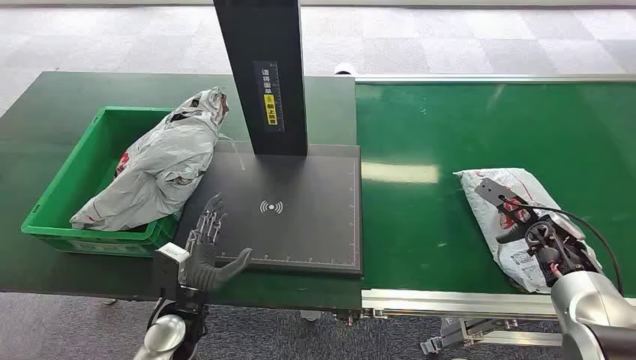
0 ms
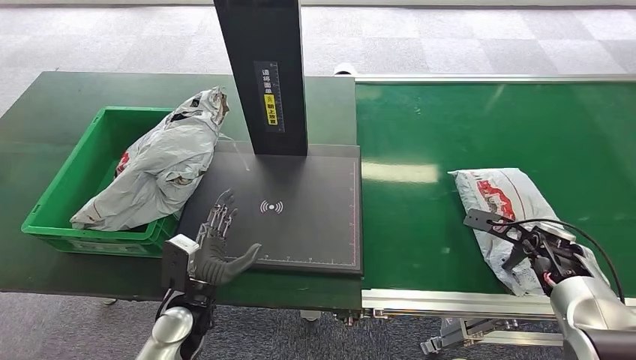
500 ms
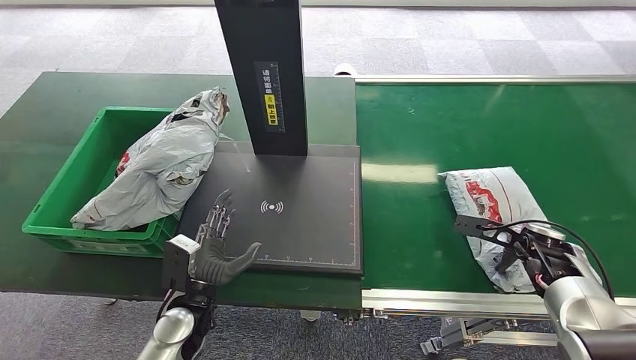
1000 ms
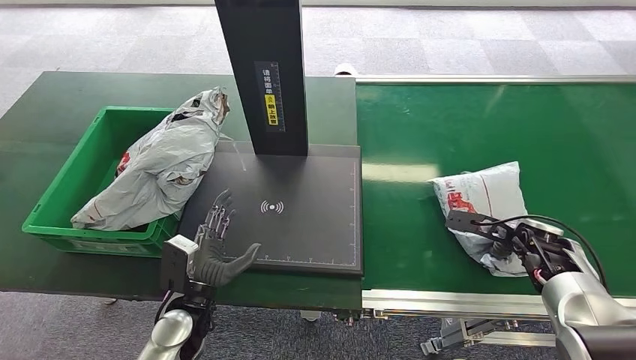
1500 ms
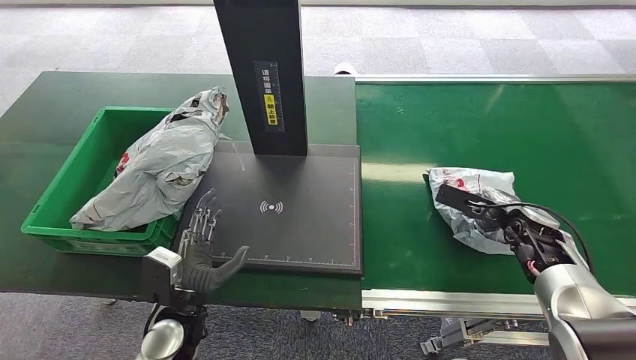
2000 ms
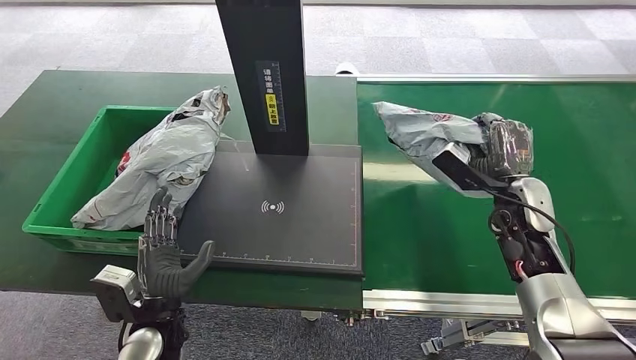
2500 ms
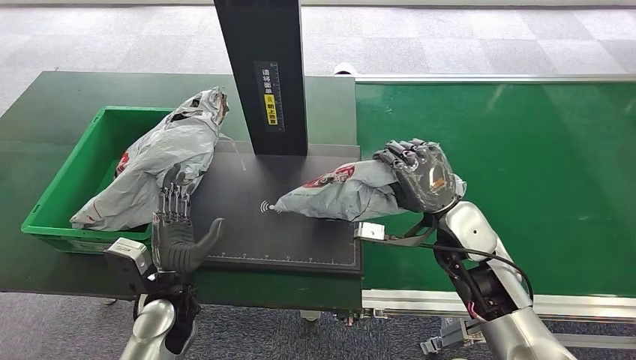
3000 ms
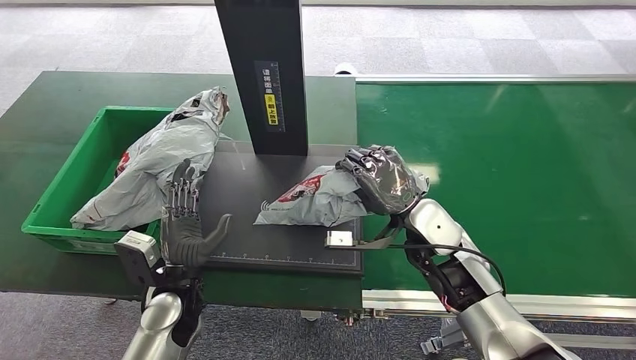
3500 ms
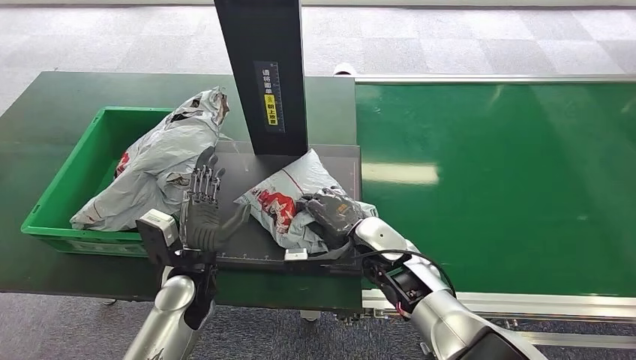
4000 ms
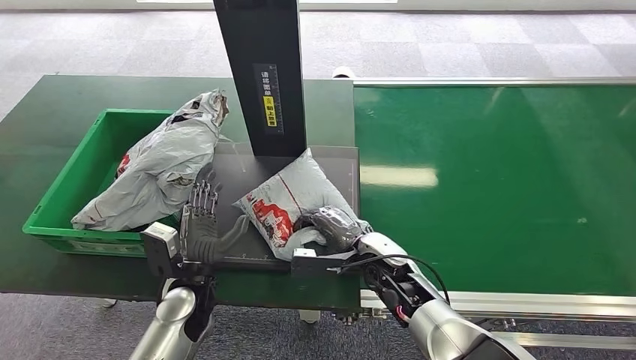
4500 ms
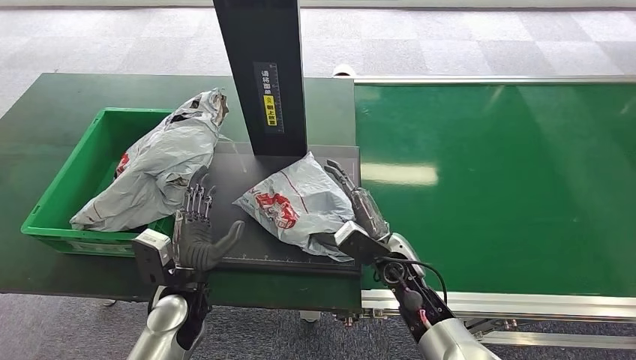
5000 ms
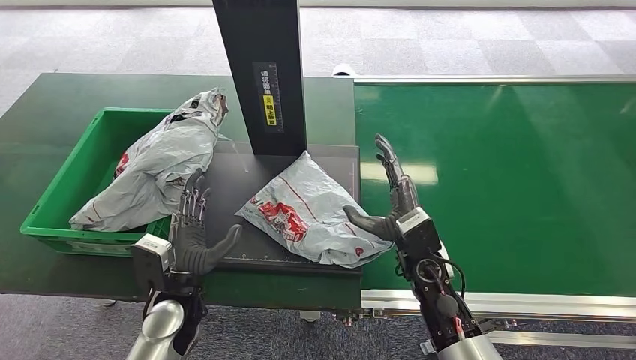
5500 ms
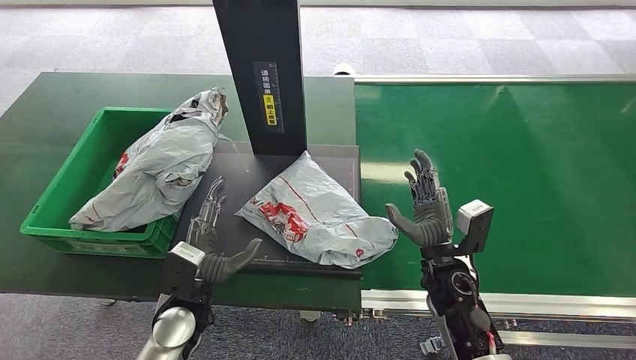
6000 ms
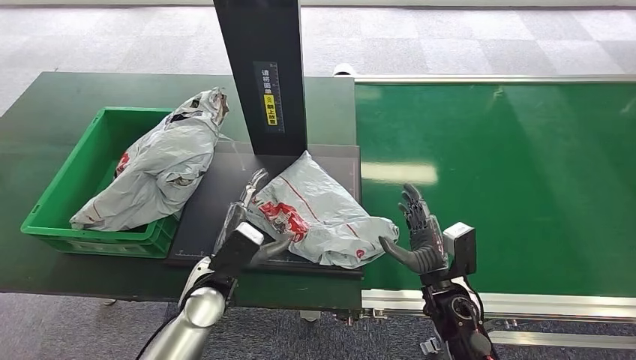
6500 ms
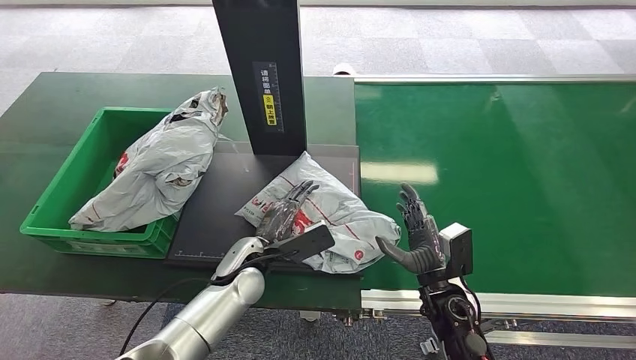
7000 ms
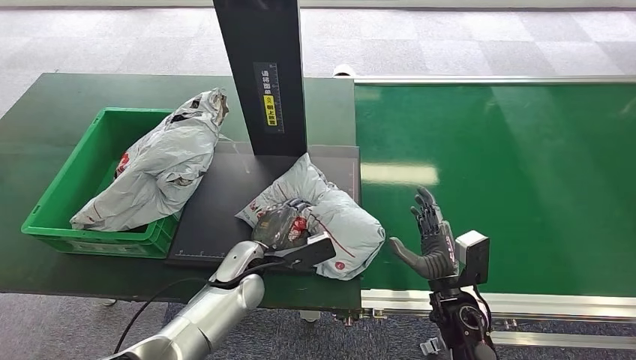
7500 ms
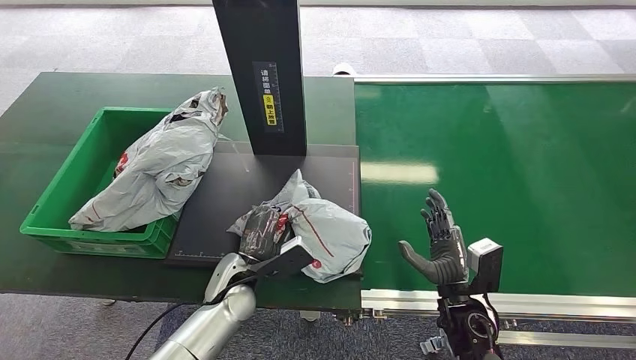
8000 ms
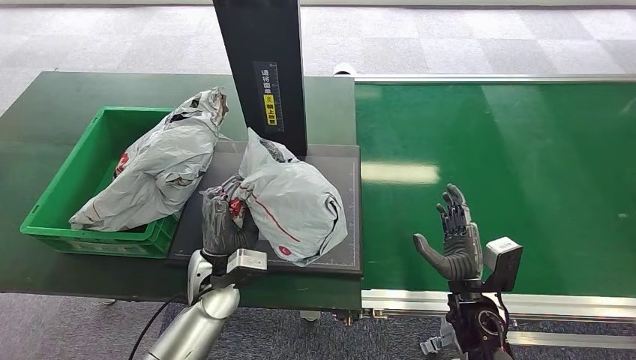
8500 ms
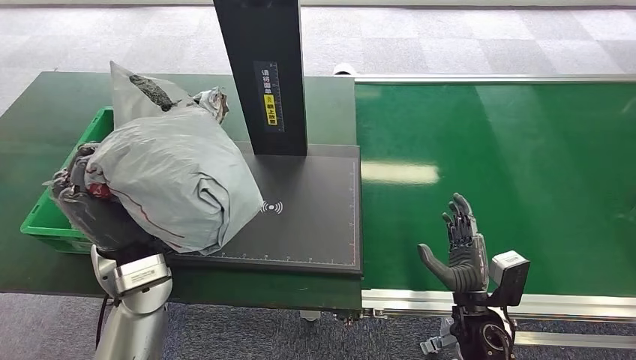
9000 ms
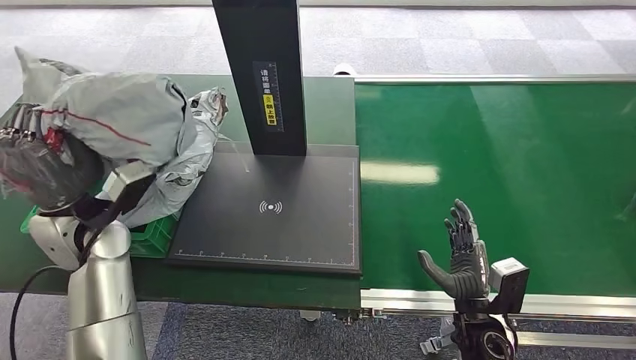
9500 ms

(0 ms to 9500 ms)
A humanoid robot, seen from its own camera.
Task of the whole recording: Weigh the package on the weighing device and place it in the left basket.
Step, 0 ms - 2500 ms: Pick up the package from the conveyor belt.
Step, 3000 ms - 6000 ms: Place the package onto the inbound machine.
2000 ms - 4000 ms: The left hand travels forward by roughly 5 cm, while the right hand moves to the left, some 30 cm.
5500 ms - 7500 ms: The left hand moves to the right and forward, about 10 cm. Meanwhile the right hand moves backward, to the right and downward, approximately 10 cm.

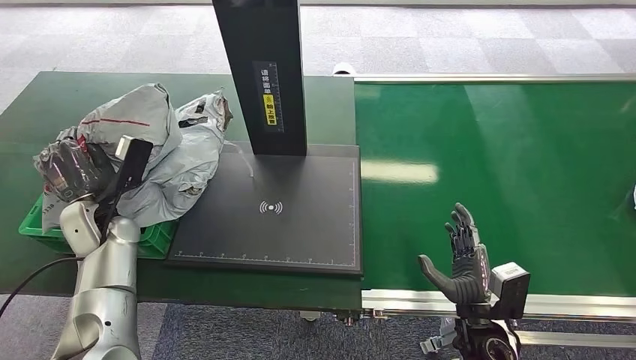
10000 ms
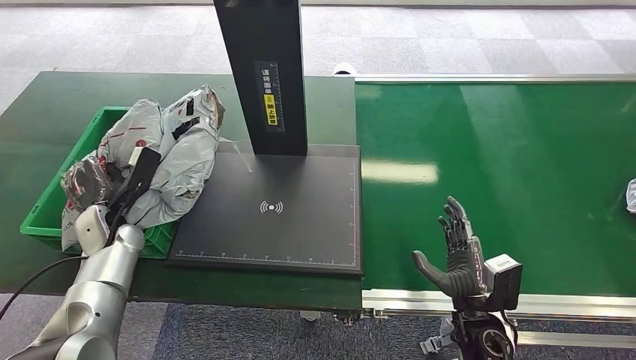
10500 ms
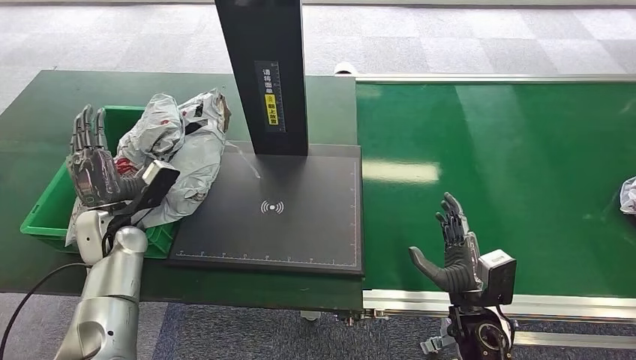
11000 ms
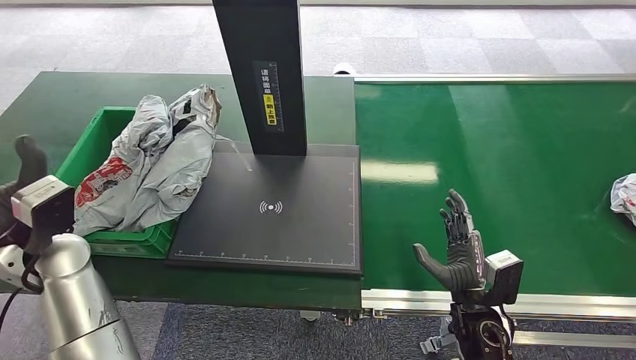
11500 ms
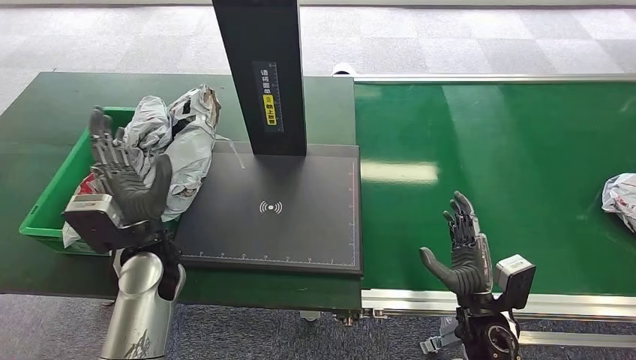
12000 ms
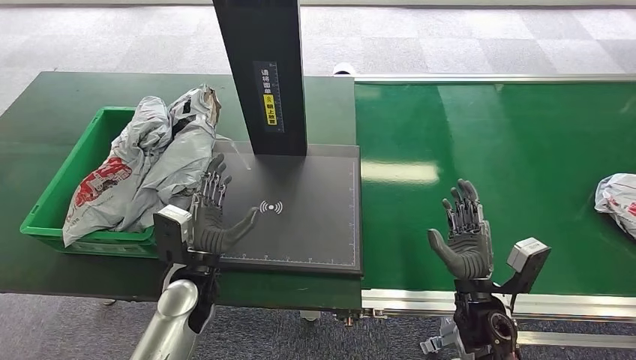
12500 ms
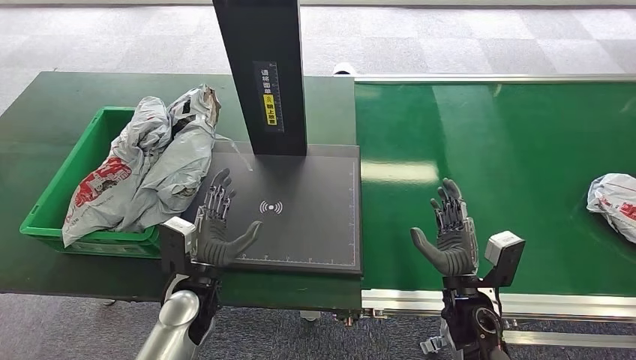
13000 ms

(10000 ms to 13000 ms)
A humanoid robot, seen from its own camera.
Task of the whole recording: Weigh the package on the weighing device and place it in the left basket.
Step, 10000 ms - 13000 ms: Place the package into the parcel locker.
10000 ms - 11500 ms: The left hand goes approximately 10 cm backward and upward.
11500 ms - 13000 ms: The left hand goes about 20 cm to the right and downward.

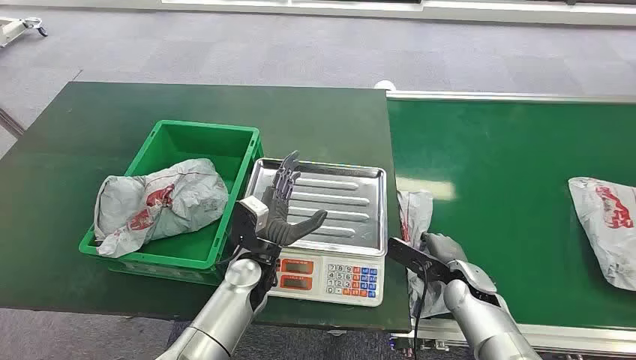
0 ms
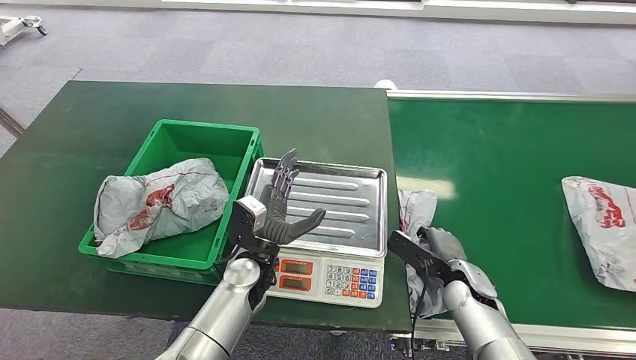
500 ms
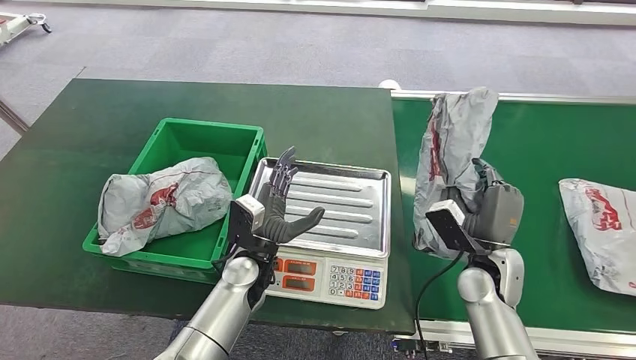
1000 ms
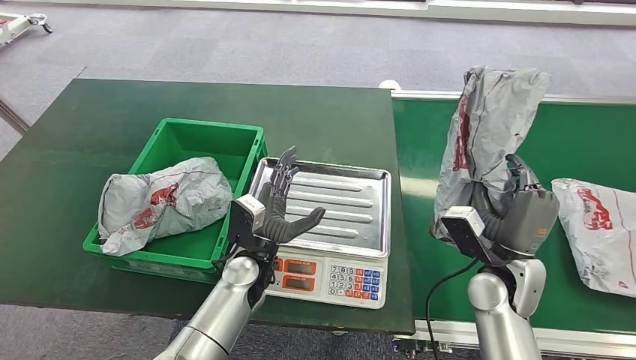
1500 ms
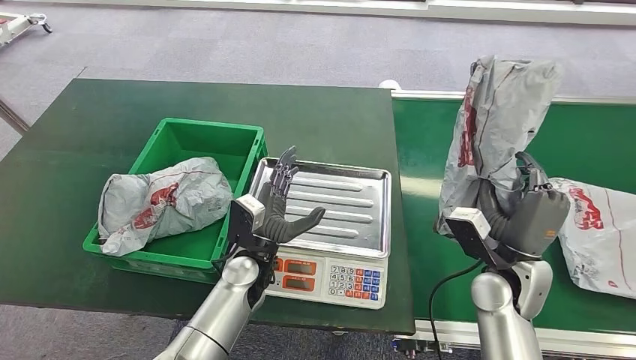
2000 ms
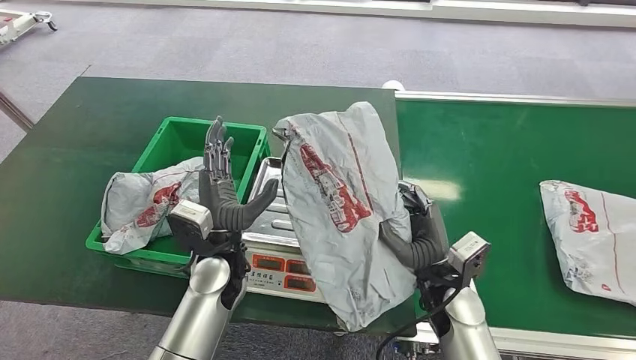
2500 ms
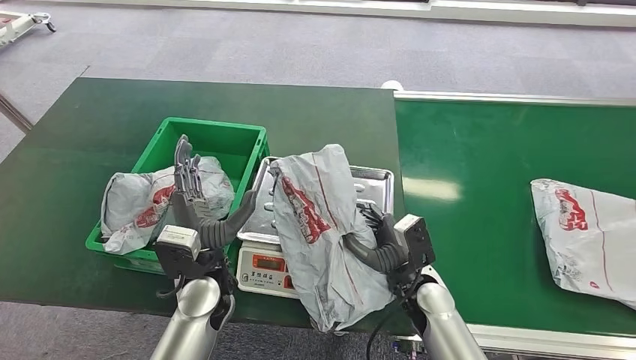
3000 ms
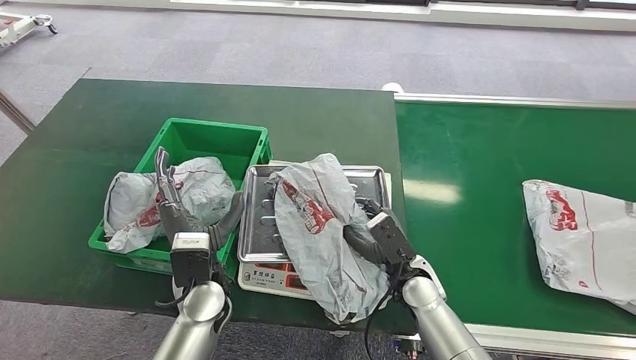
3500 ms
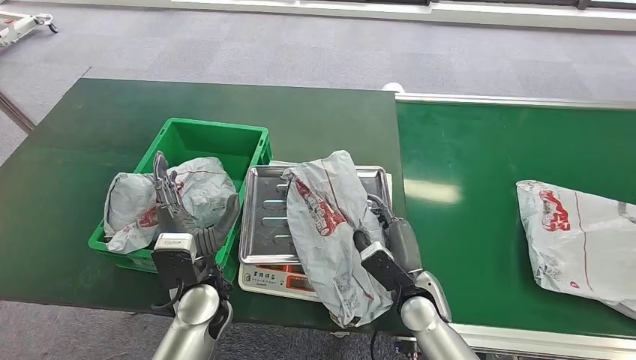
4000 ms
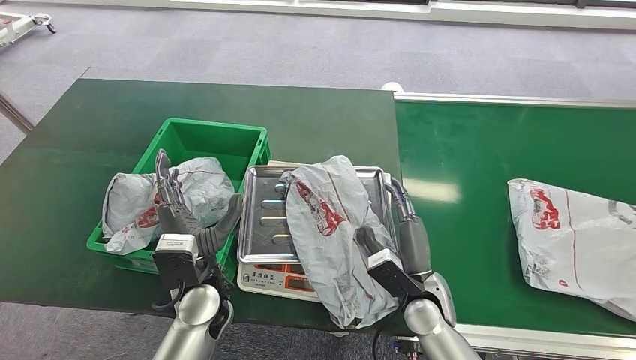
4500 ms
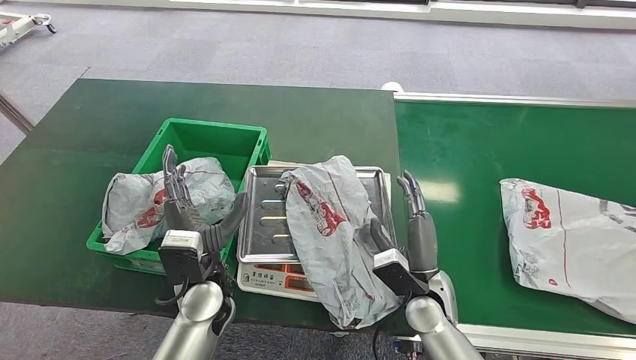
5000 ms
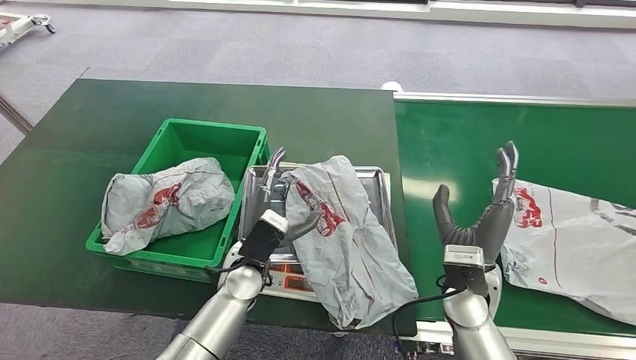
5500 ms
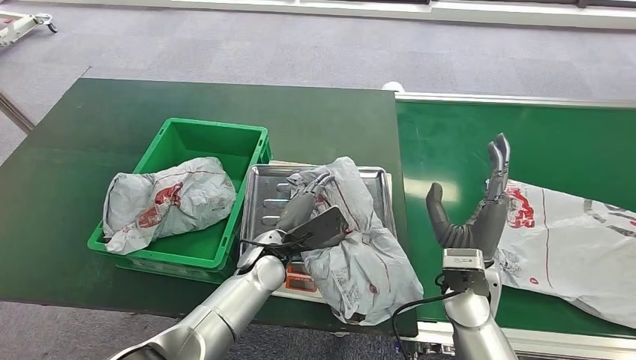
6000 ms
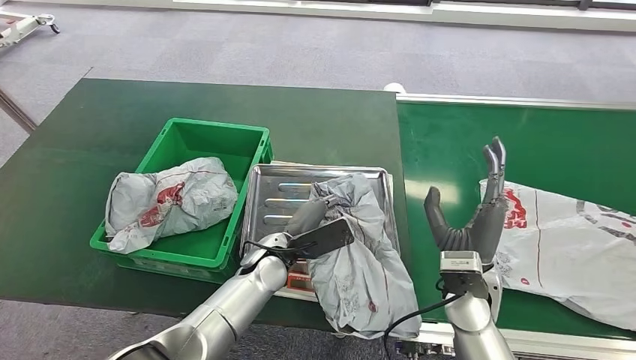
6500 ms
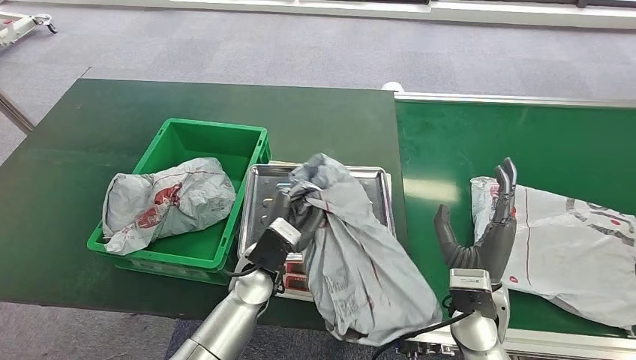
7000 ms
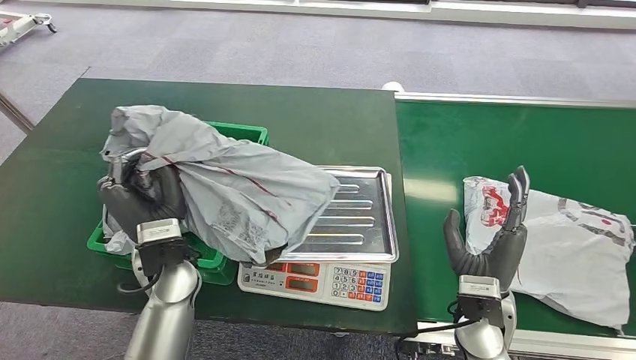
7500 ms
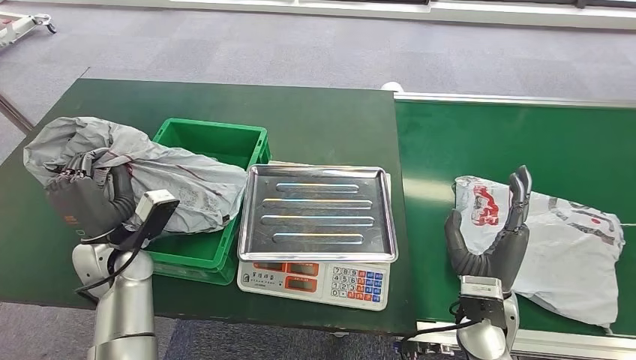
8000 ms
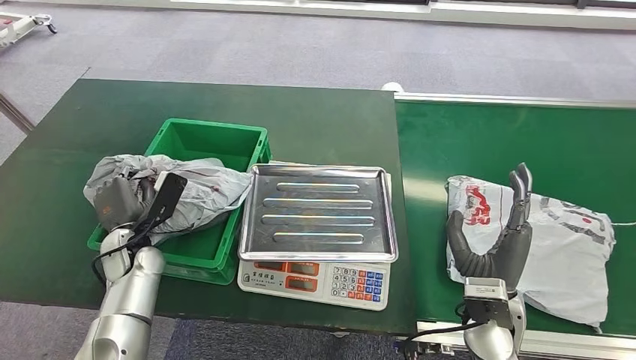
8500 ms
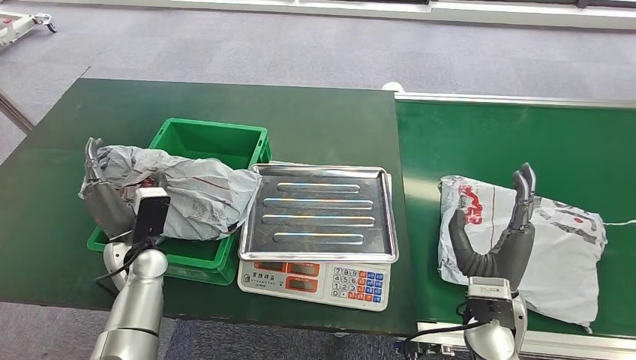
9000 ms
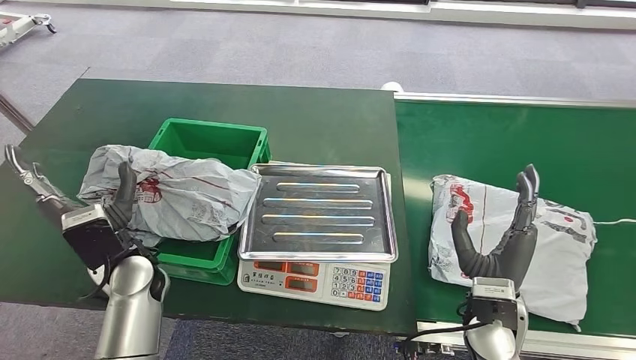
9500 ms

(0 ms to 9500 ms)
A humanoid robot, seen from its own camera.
Task of the whole recording: Weigh the package on the weighing device and place it in the left basket.
Step, 0 ms - 1000 ms: Pick up the package from the conveyor belt.
Step, 2500 ms - 4500 ms: Place the package onto the inbound machine.
Step, 6500 ms - 7000 ms: Pick up the package from the inbound machine.
